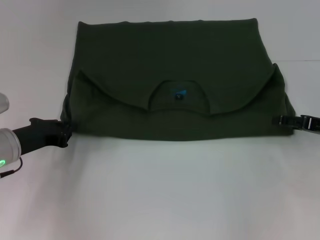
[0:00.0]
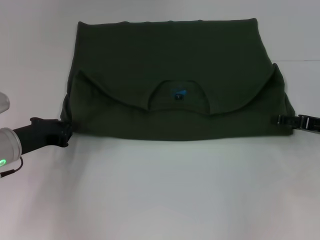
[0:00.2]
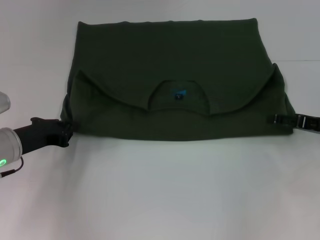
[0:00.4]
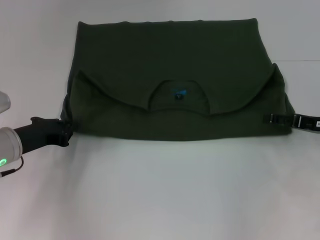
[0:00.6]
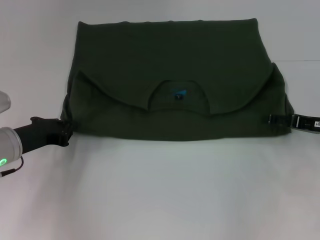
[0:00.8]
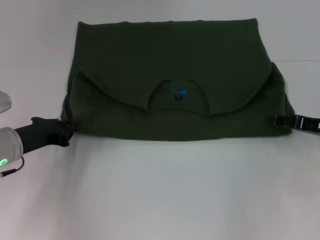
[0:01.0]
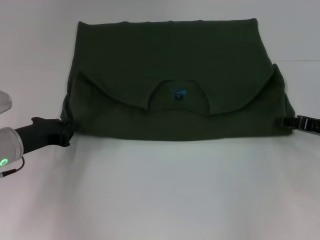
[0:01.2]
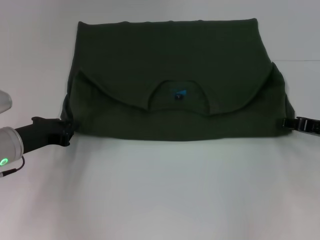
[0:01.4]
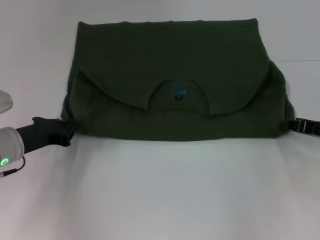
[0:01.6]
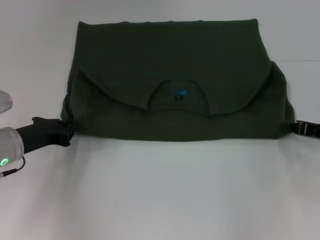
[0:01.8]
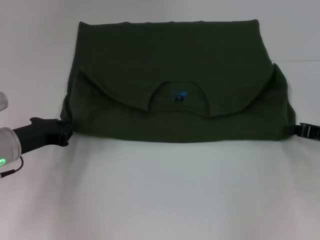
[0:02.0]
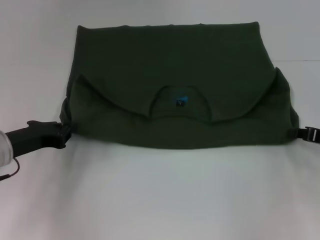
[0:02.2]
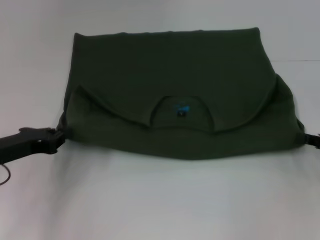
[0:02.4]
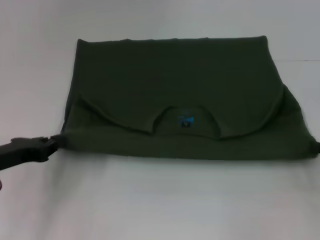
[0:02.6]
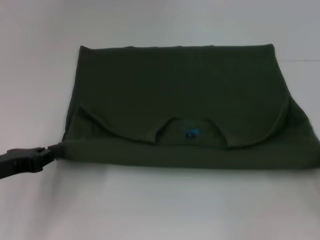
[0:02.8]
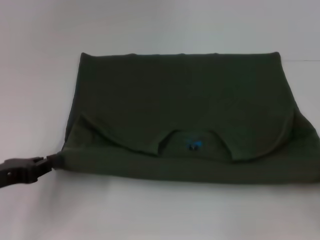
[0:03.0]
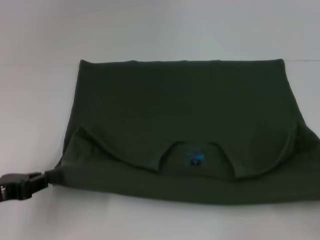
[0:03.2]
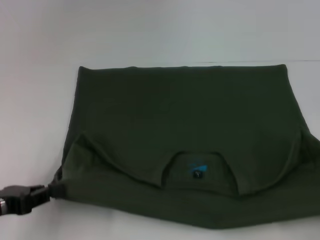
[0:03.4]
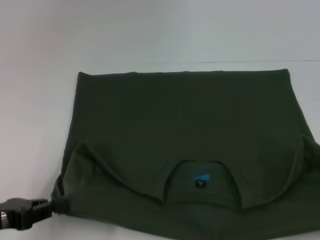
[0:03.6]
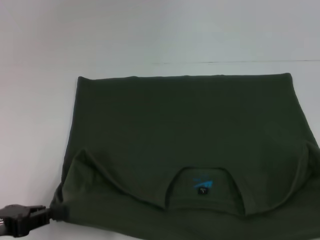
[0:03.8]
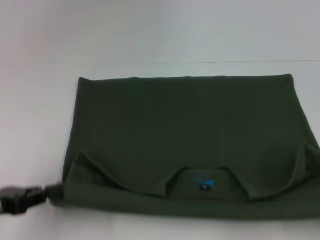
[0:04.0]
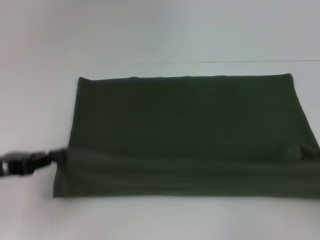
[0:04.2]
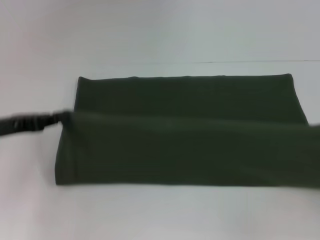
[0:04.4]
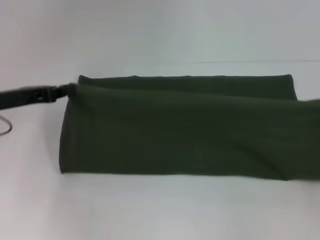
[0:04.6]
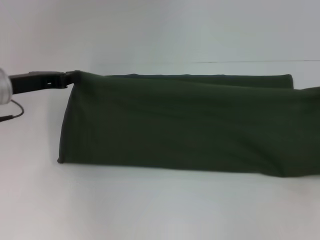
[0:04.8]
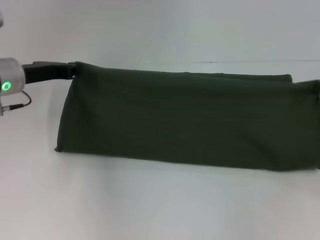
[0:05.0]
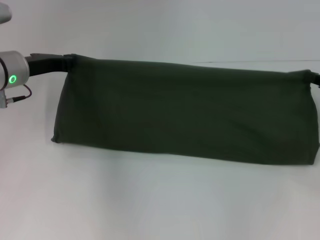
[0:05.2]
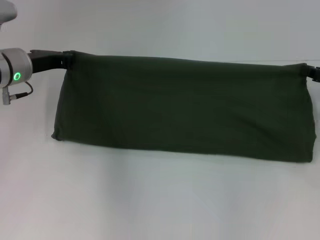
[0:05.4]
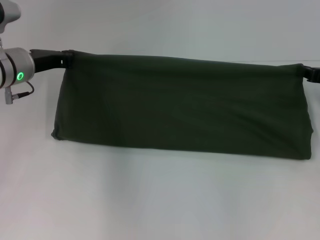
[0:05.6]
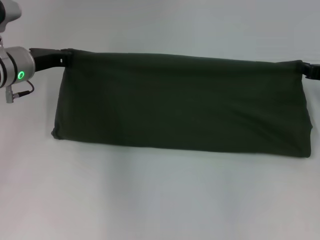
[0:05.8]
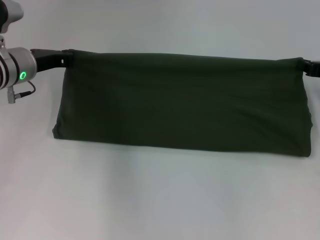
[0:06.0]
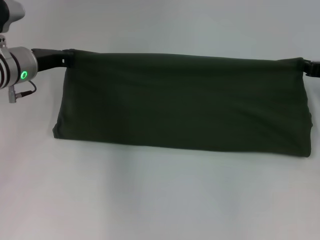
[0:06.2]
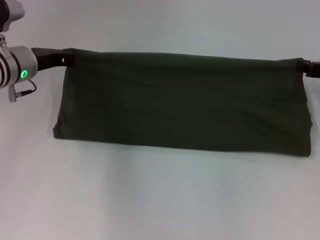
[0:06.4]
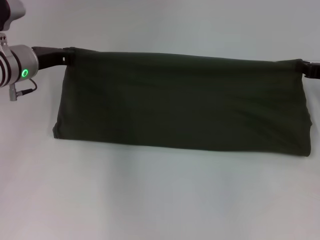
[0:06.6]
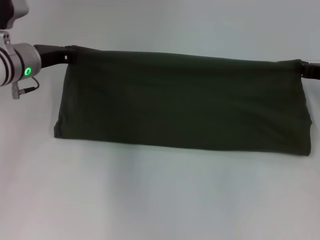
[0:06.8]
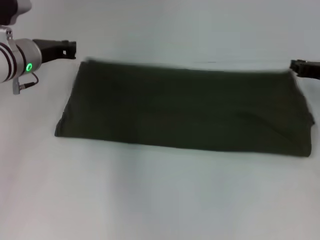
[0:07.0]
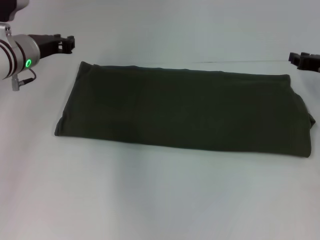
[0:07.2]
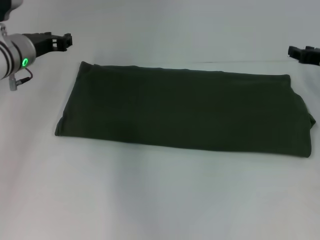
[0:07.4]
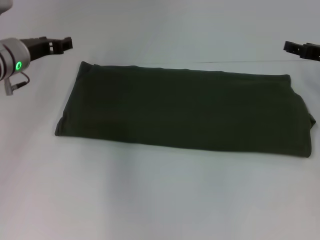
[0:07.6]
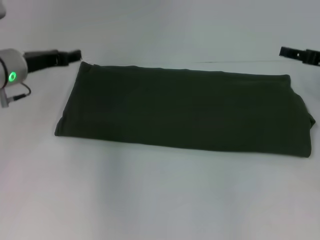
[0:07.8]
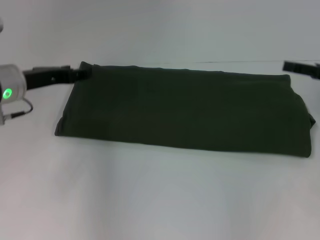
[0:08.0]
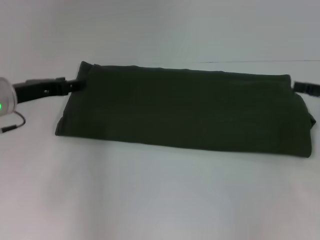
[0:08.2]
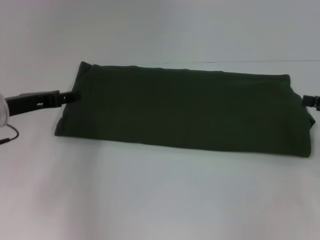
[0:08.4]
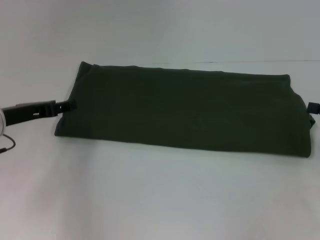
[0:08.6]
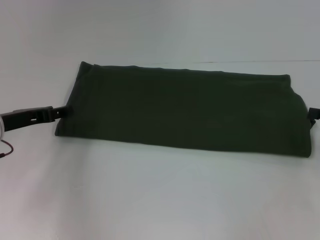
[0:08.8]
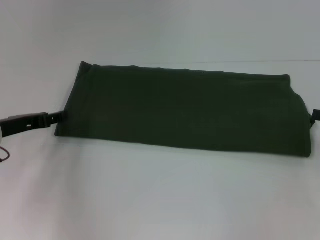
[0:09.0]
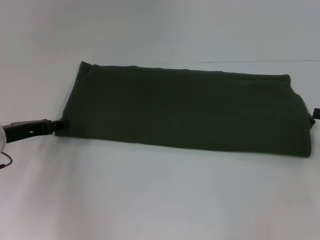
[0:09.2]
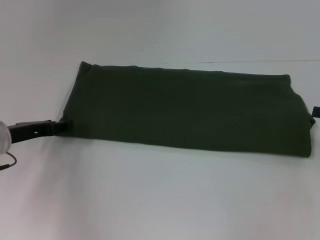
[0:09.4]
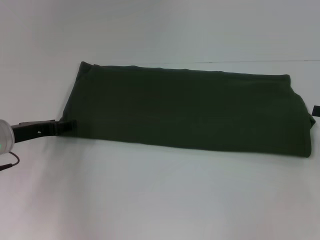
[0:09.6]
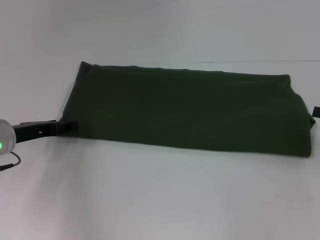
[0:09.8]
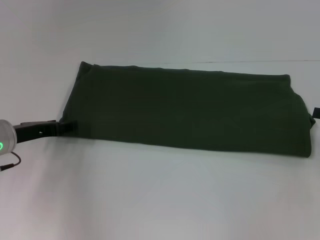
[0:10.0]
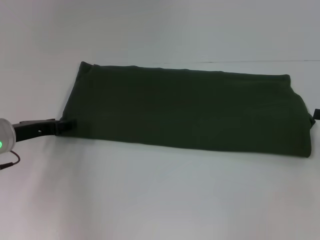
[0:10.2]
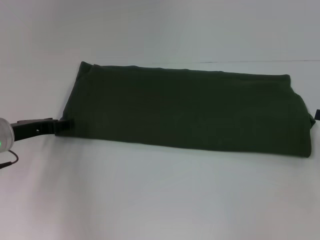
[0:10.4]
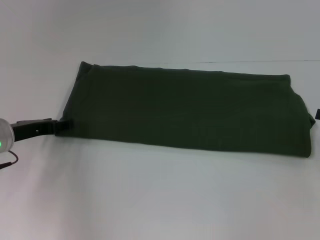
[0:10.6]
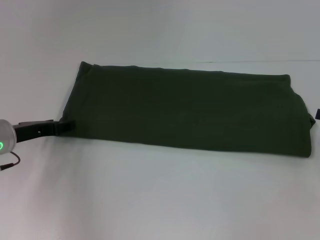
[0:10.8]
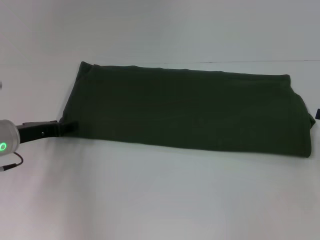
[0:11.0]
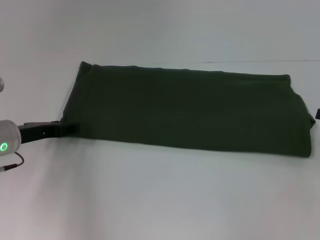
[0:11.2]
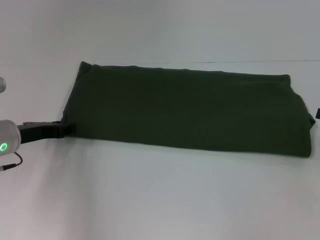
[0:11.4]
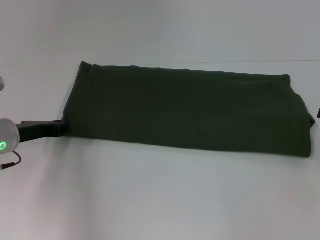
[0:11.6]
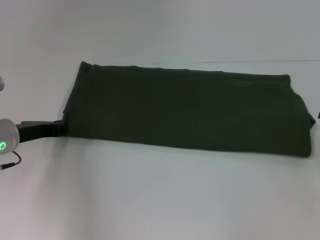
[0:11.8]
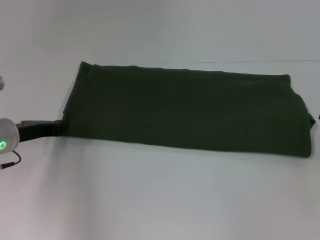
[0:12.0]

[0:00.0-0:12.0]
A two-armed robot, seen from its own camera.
Step, 0:00.0 to 0:03.6: Pull the clothes with your left hand.
Step, 0:00.0 to 0:03.6: Pull the clothes with your right hand.
Step, 0:03.8 to 0:07.4: Fold the clothes with your right hand.
0:00.0 to 0:01.6: The right gripper closes.
0:01.6 to 0:03.0: The right gripper heads backward and to the right, covering some 15 cm. The left gripper shifts some 10 cm backward.
0:03.0 to 0:04.4: The left gripper is displaced forward by some 5 cm. Meanwhile the right gripper reaches approximately 10 cm backward, then returns.
0:04.4 to 0:06.0: The left gripper shifts about 15 cm forward and to the right. Meanwhile the right gripper is displaced forward and to the left by some 20 cm.
0:06.0 to 0:07.6: The right gripper opens. The left gripper opens up.
0:07.6 to 0:09.0: The right gripper moves backward and to the right, approximately 15 cm, and opens up; the left gripper heads backward and downward, covering about 10 cm.
0:09.0 to 0:10.4: There are only small adjustments of the grippers.
0:10.4 to 0:12.0: The left gripper closes its fingers.

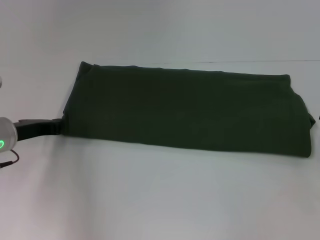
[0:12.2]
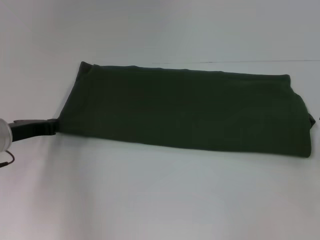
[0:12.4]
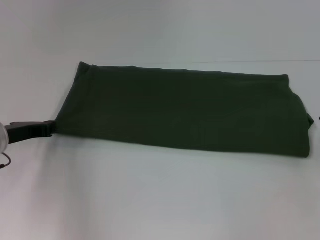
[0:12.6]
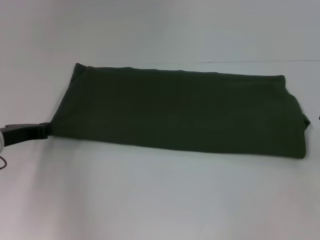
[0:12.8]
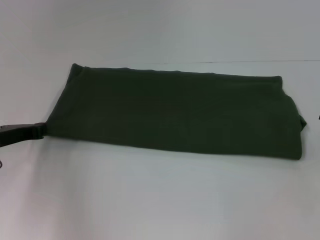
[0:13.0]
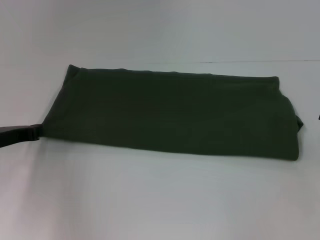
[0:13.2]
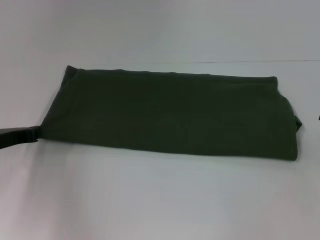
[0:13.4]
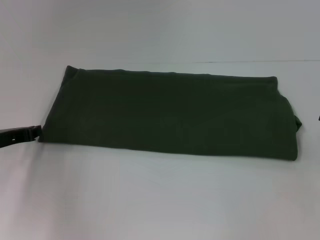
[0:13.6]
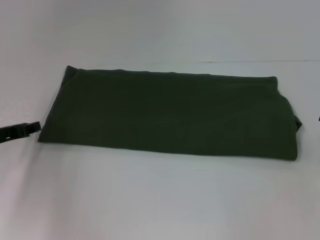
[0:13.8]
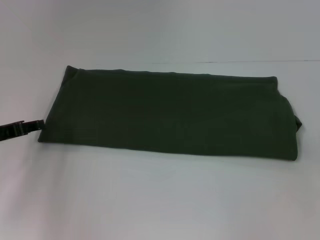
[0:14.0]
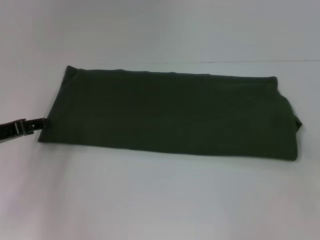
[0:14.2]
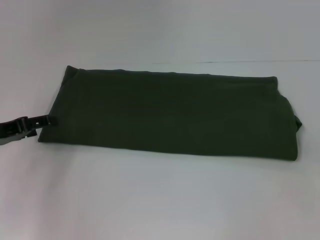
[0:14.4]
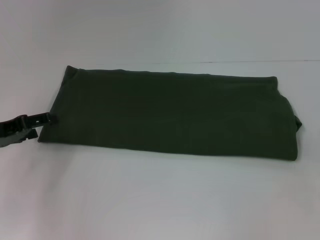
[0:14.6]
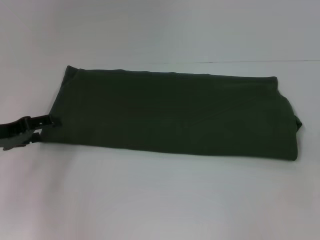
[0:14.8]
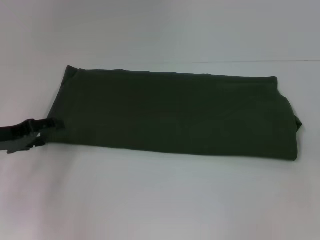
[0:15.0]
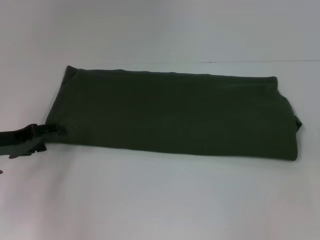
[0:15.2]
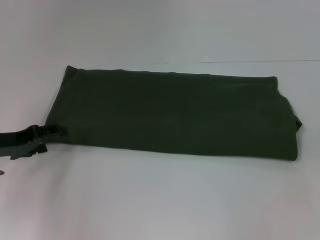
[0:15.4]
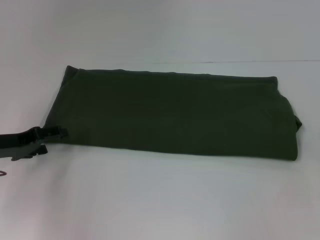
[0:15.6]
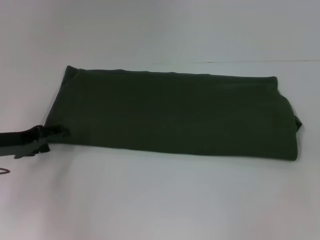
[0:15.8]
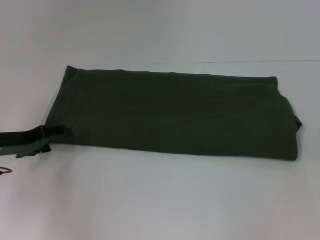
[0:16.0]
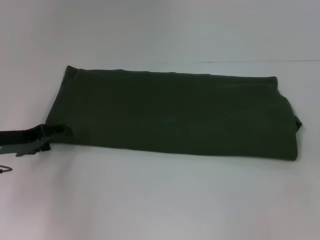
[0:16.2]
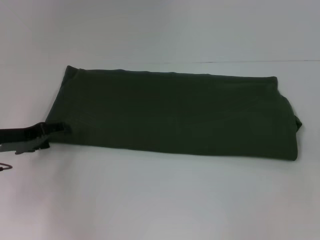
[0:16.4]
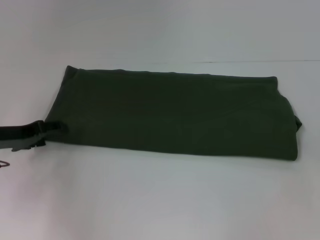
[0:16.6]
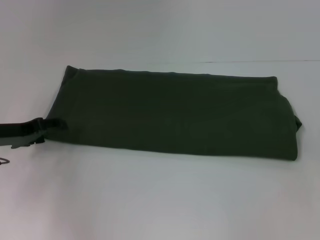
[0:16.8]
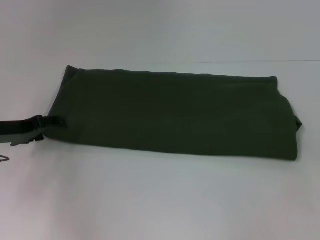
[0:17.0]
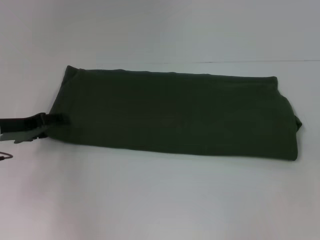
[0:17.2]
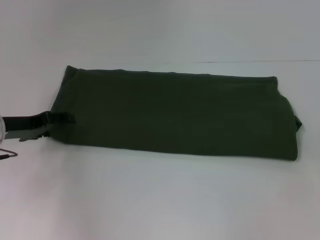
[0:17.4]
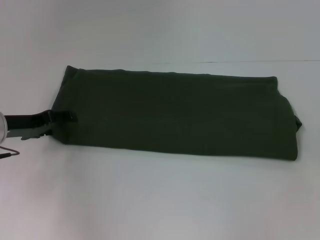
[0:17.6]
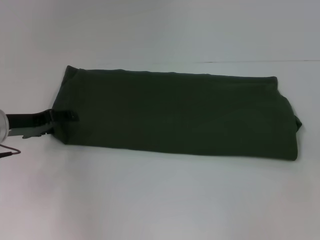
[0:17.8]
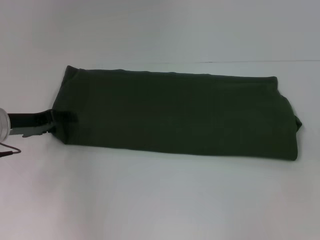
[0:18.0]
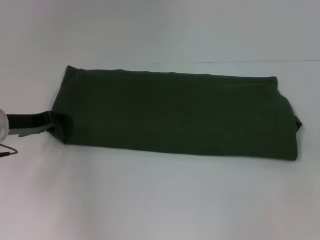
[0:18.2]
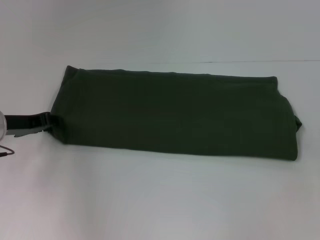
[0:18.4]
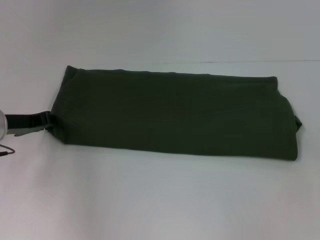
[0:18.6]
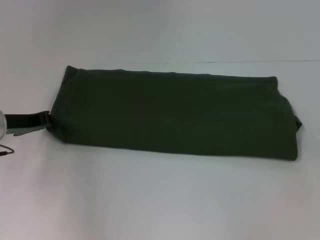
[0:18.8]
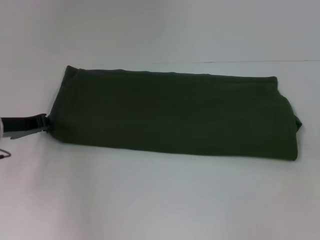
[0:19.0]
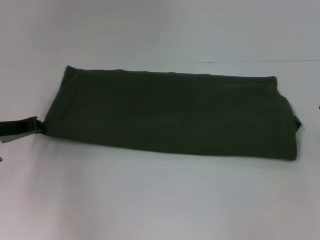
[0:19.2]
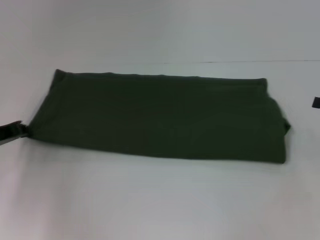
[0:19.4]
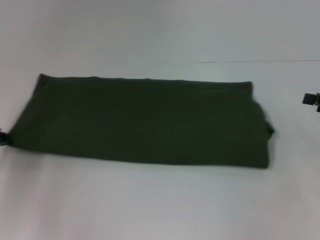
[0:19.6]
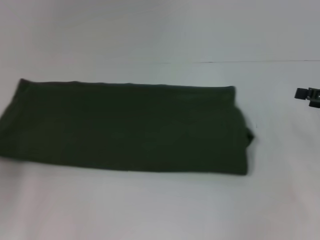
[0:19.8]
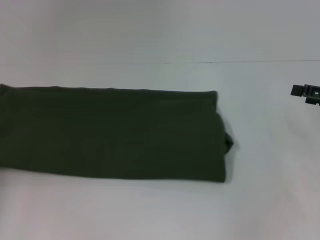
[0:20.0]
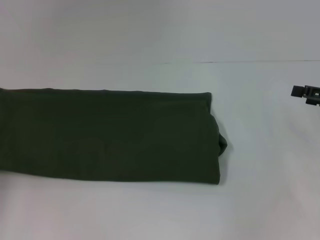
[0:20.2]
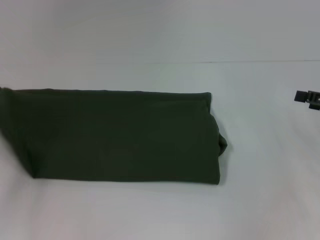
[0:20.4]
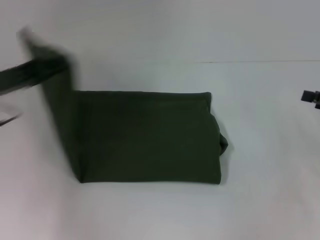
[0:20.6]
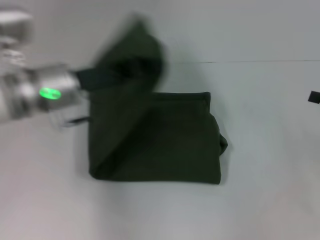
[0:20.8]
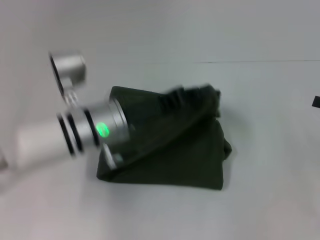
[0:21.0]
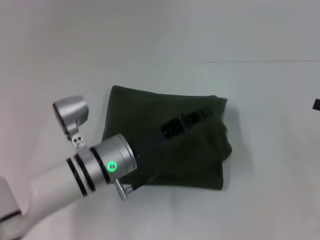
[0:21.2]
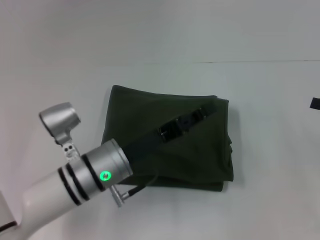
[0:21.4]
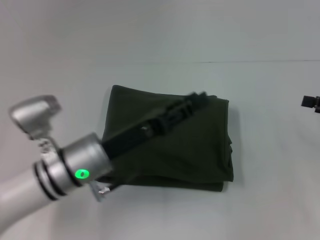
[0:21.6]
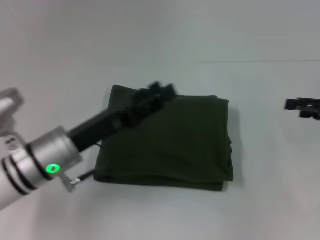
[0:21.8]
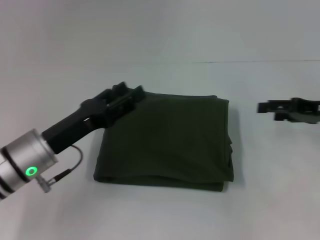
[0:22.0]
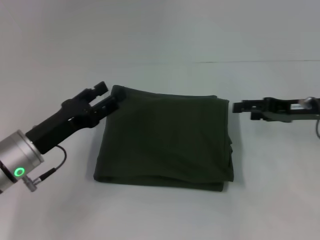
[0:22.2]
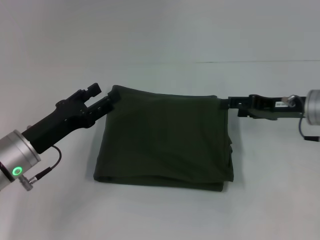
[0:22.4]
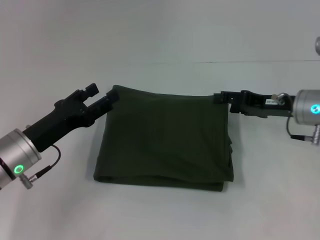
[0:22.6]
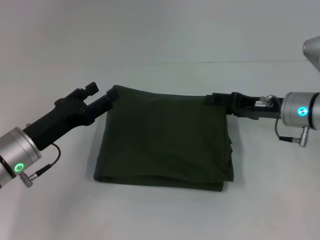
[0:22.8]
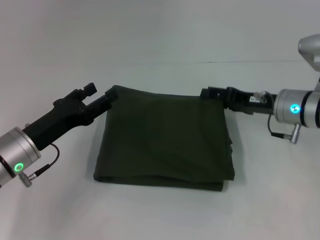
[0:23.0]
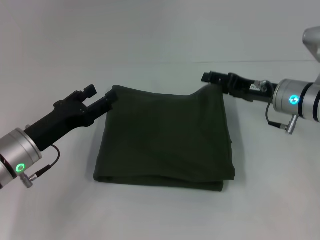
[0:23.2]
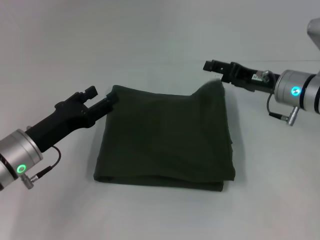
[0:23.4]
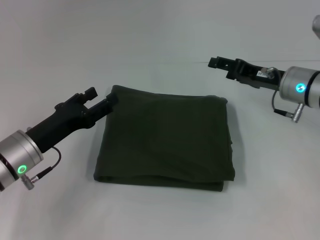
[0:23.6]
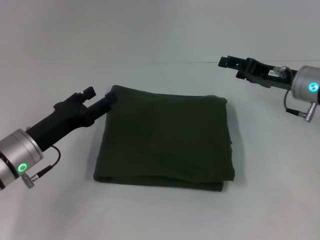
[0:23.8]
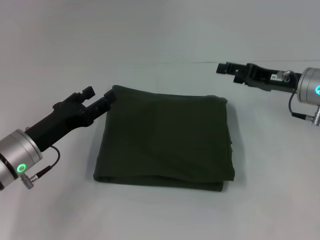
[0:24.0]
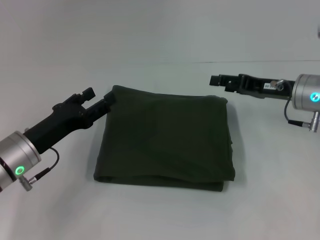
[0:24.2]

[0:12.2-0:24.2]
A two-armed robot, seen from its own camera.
Step, 0:12.2 to 0:21.4: Fold the clothes with your left hand.
0:12.2 to 0:13.8: The left gripper moves some 5 cm.
0:13.8 to 0:15.2: The left gripper opens up.
0:15.2 to 0:18.2: The grippers make only small movements.
0:18.2 to 0:19.8: The left gripper goes approximately 10 cm to the left and backward, and closes.
0:19.8 to 0:21.2: The left gripper moves to the right, about 30 cm.
0:21.2 to 0:22.6: The right gripper moves to the left and forward, roughly 15 cm, while the left gripper is displaced to the left by approximately 15 cm, and opens its fingers.
0:22.6 to 0:24.2: The grippers move only a little.
